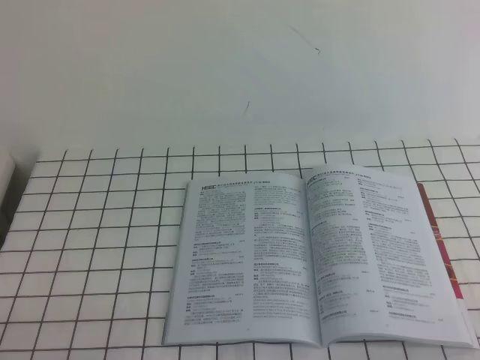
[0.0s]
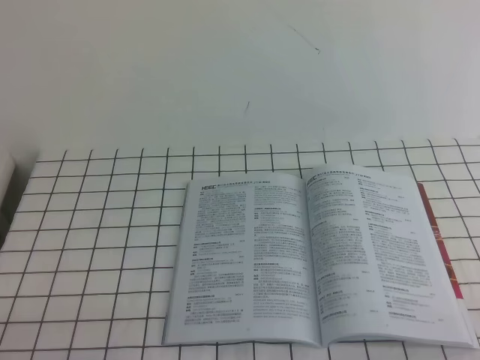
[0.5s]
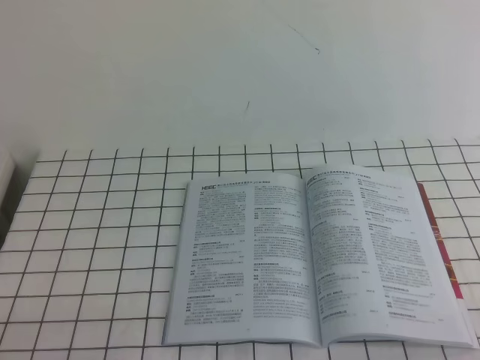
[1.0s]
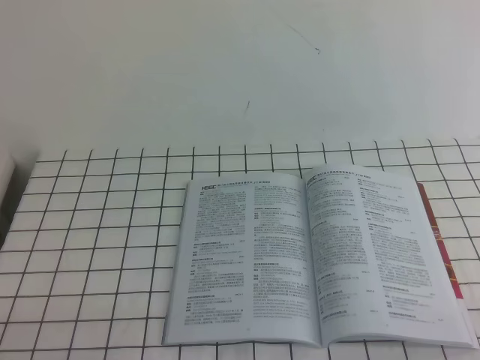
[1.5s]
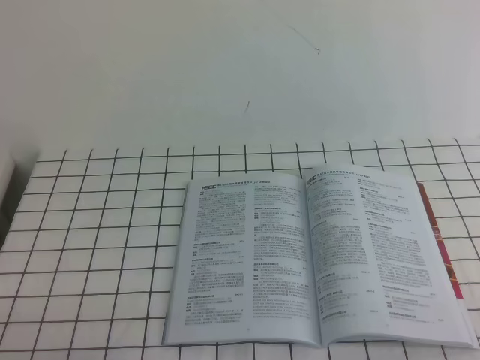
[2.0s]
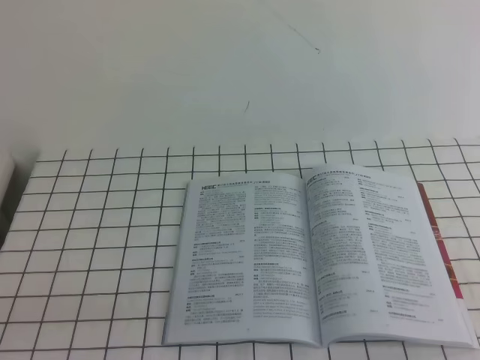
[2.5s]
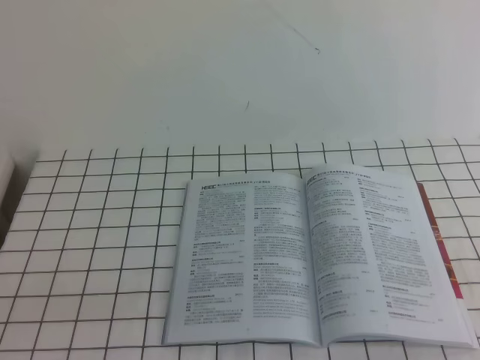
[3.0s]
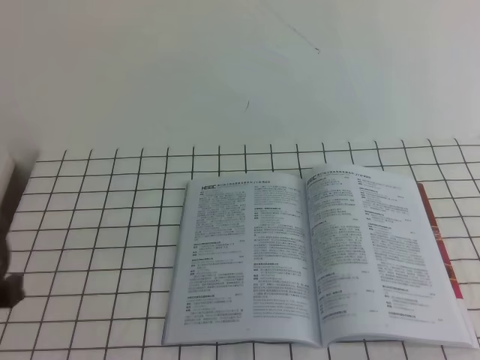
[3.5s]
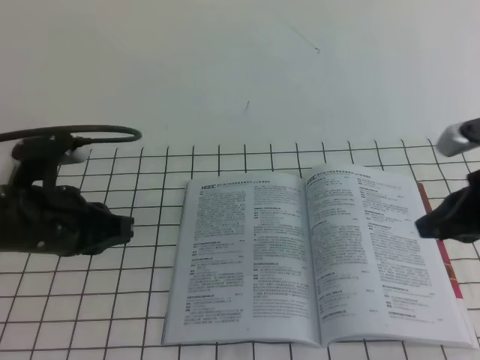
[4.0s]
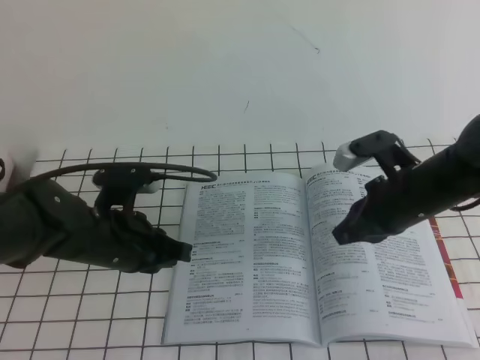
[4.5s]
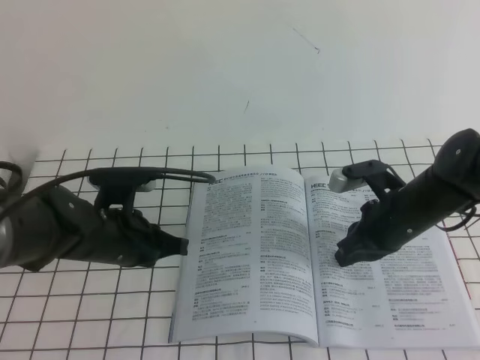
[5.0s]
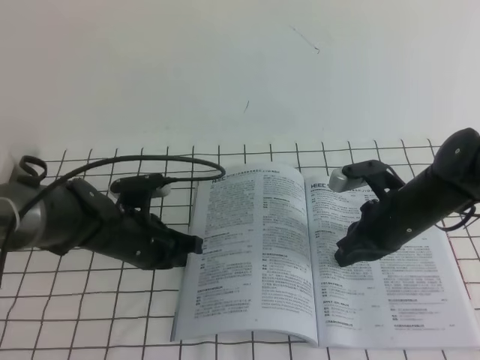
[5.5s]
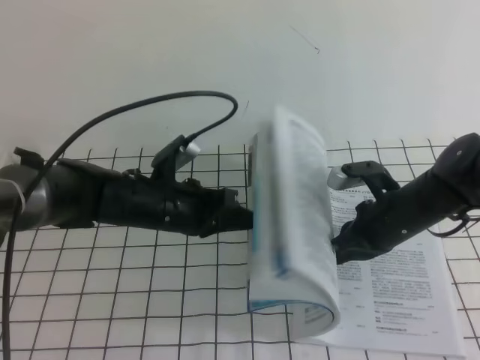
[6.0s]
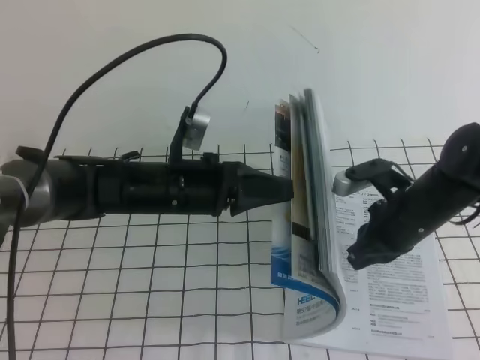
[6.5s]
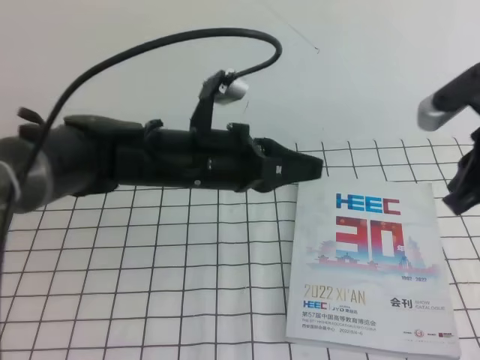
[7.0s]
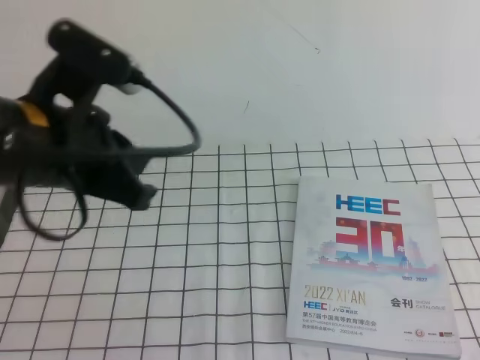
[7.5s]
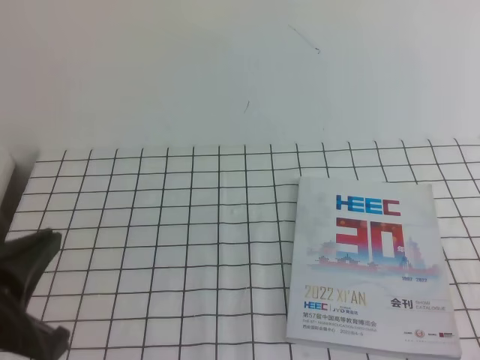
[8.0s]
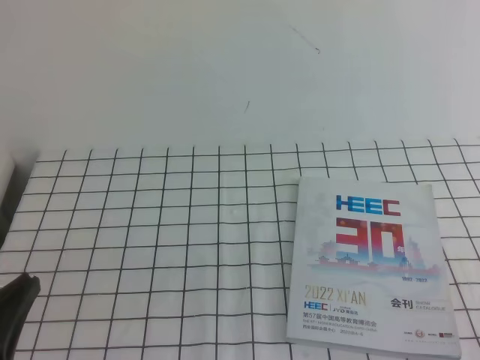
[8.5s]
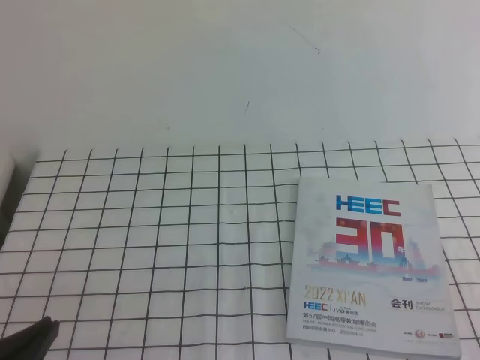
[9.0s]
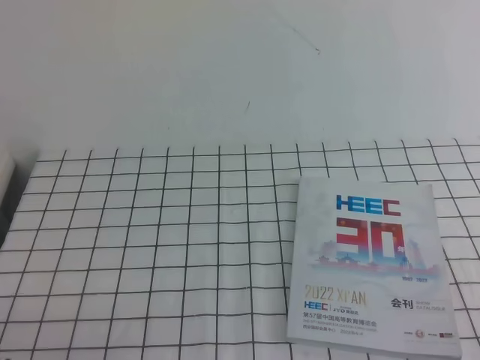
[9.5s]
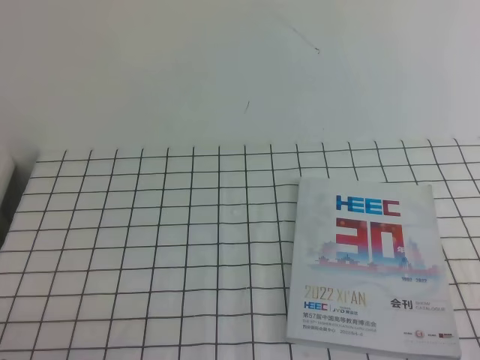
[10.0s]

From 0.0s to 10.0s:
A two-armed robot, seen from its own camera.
Task of the whole recording: on the white tablecloth, hold the book with one hand and close it with the other.
From 2.0s to 4.0s: The two grippers go approximately 20 cm forward.
From 4.0s to 6.0s: The left gripper shifts about 15 cm to the right, forward and downward; the right gripper travels downward, to the left and forward by some 20 cm.
From 6.0s to 8.0s: The left gripper goes approximately 30 cm backward, upward and to the left. The right gripper moves backward, upward and to the right, some 35 cm.
From 8.0s to 10.0s: The left gripper shifts about 15 cm downward and backward.

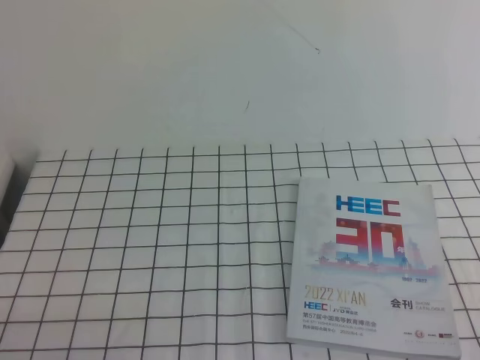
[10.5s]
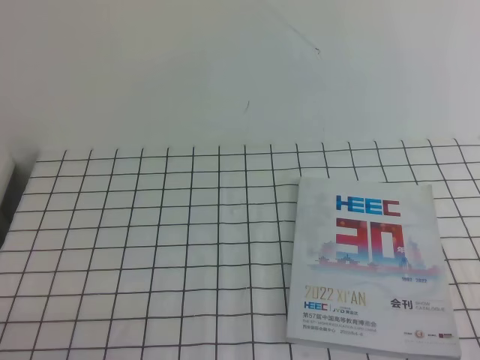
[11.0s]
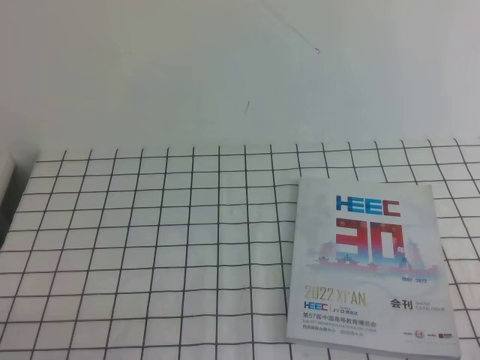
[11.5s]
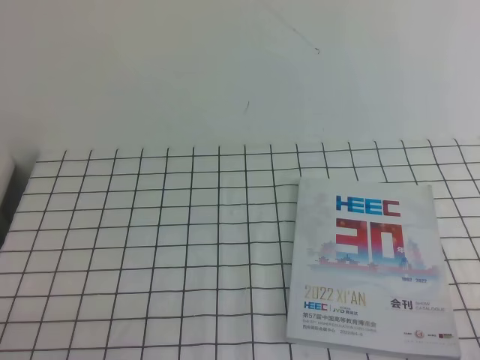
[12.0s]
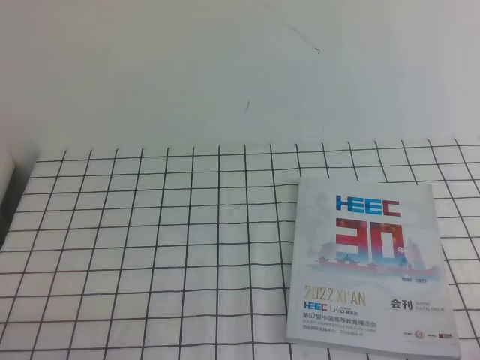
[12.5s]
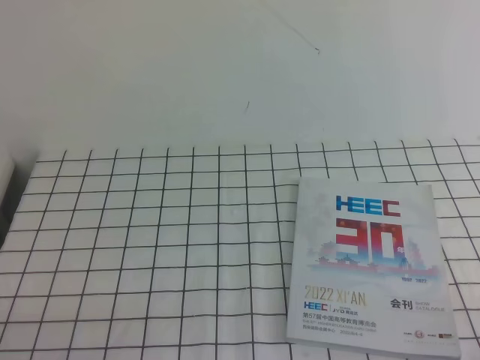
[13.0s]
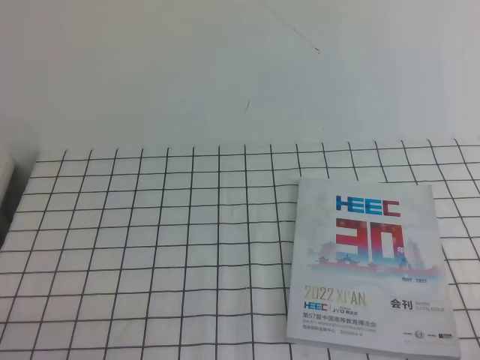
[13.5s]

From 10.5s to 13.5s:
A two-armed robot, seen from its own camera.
Task of the whole recording: on the white tablecloth, hold the book with one hand and close it with the other.
From 12.0s to 13.5s: Both grippers stay put.
